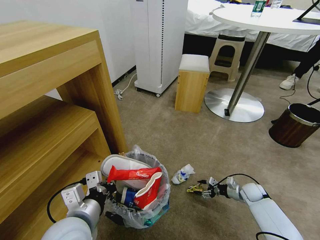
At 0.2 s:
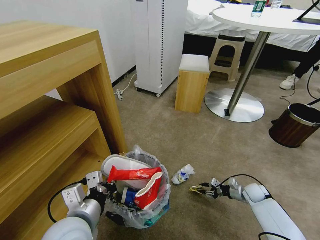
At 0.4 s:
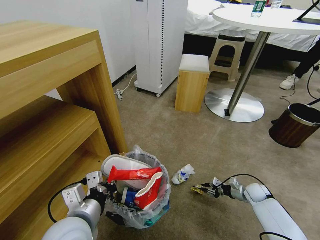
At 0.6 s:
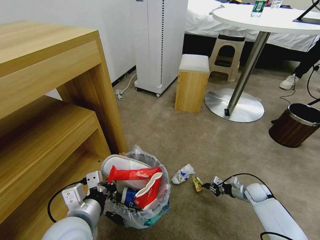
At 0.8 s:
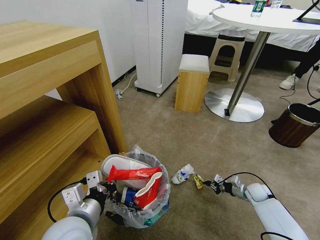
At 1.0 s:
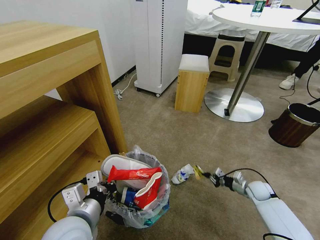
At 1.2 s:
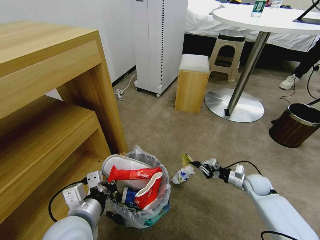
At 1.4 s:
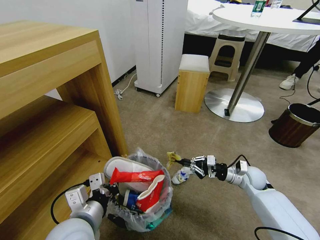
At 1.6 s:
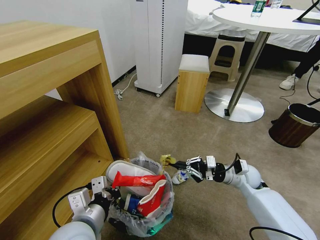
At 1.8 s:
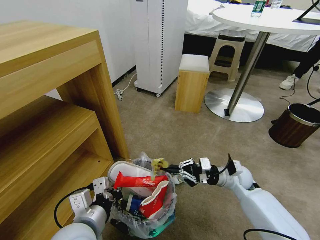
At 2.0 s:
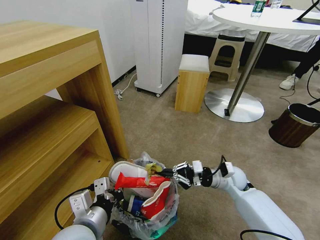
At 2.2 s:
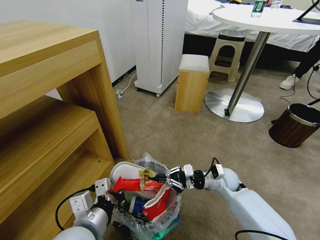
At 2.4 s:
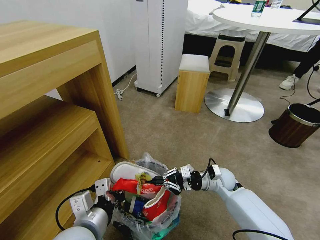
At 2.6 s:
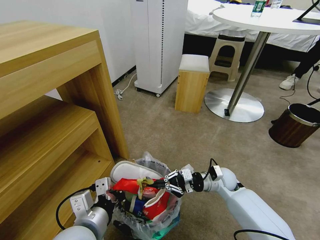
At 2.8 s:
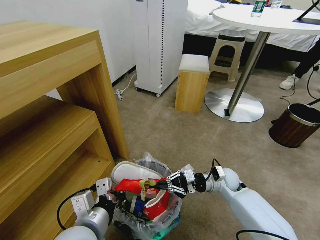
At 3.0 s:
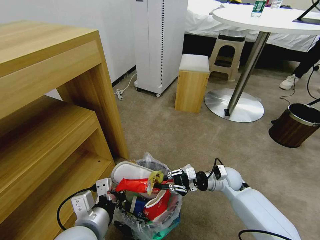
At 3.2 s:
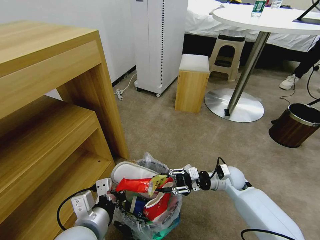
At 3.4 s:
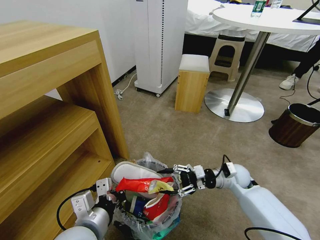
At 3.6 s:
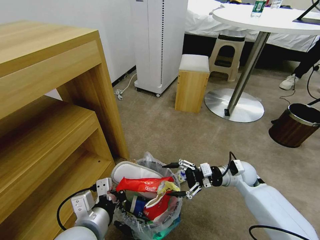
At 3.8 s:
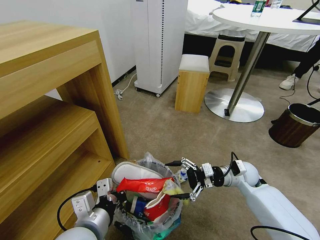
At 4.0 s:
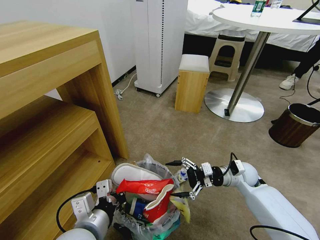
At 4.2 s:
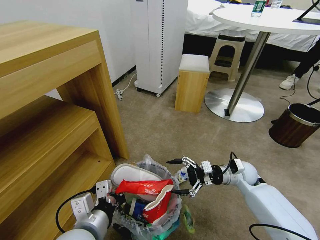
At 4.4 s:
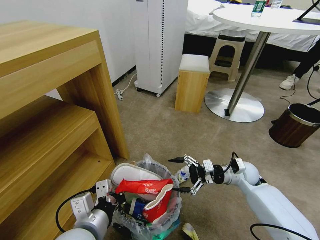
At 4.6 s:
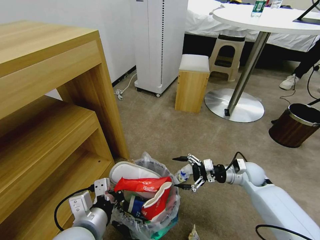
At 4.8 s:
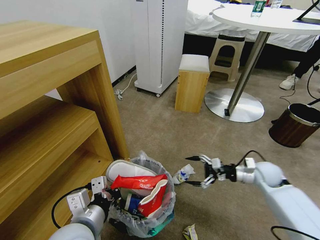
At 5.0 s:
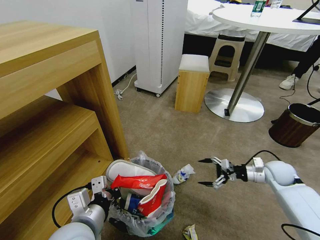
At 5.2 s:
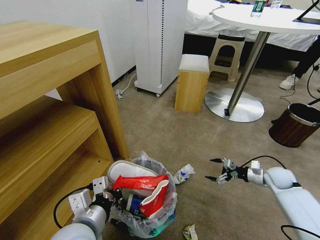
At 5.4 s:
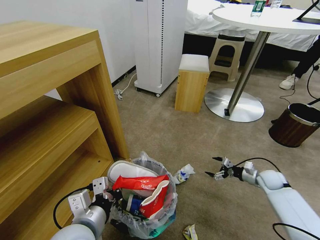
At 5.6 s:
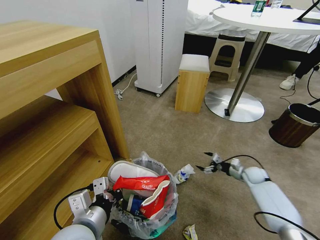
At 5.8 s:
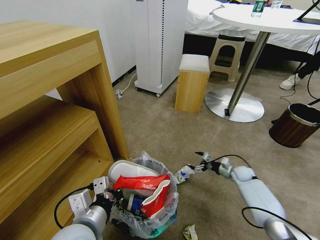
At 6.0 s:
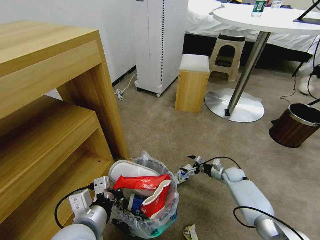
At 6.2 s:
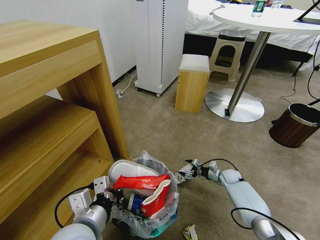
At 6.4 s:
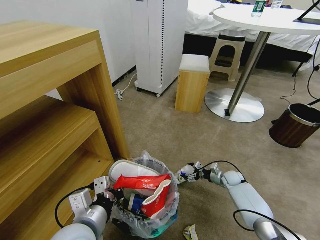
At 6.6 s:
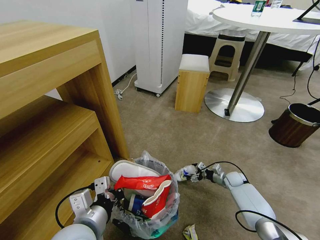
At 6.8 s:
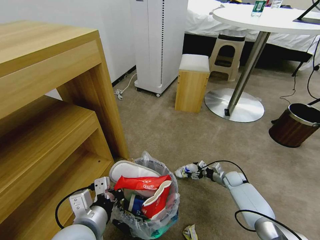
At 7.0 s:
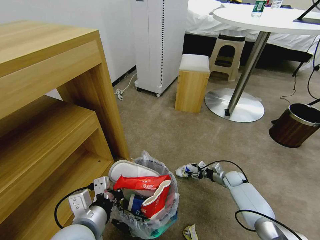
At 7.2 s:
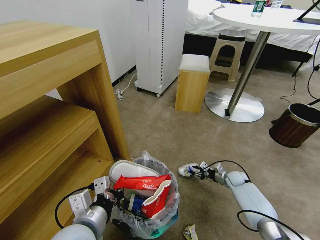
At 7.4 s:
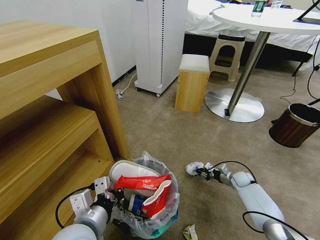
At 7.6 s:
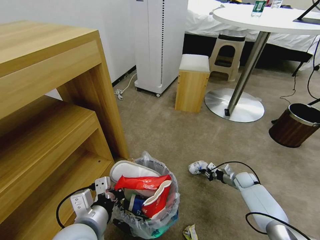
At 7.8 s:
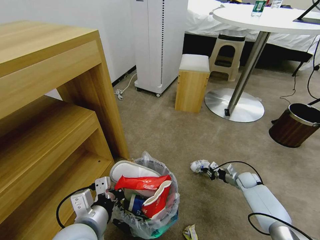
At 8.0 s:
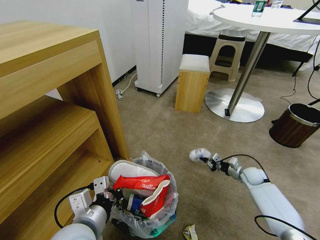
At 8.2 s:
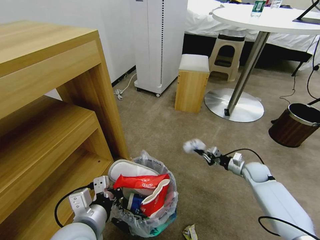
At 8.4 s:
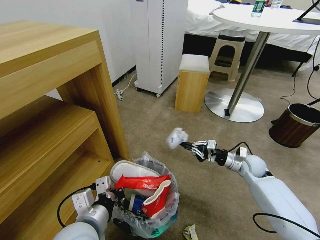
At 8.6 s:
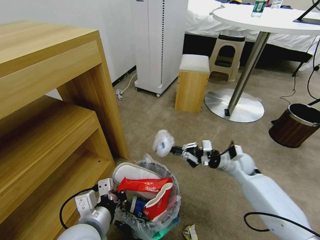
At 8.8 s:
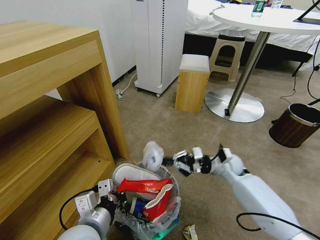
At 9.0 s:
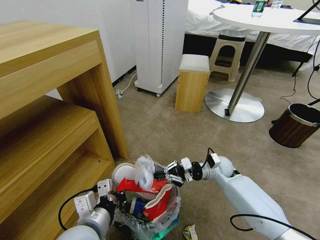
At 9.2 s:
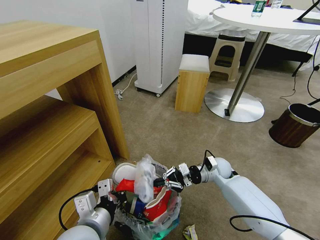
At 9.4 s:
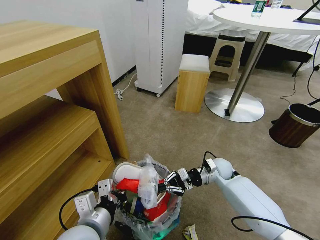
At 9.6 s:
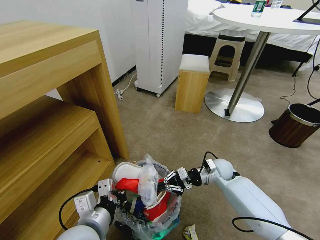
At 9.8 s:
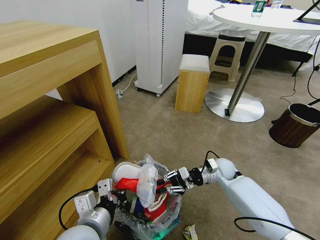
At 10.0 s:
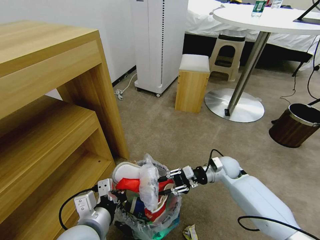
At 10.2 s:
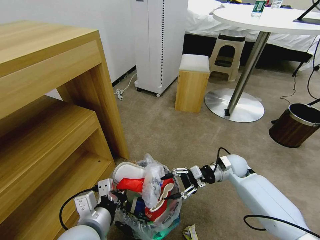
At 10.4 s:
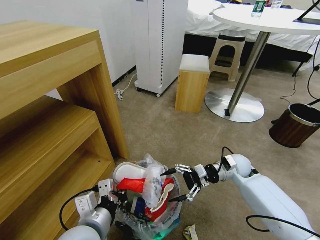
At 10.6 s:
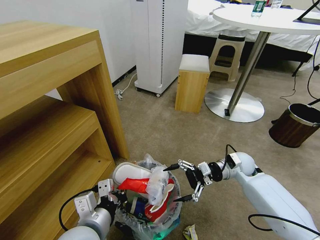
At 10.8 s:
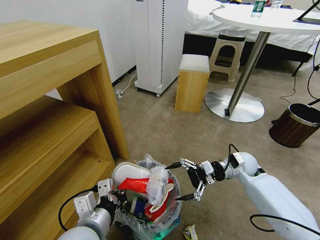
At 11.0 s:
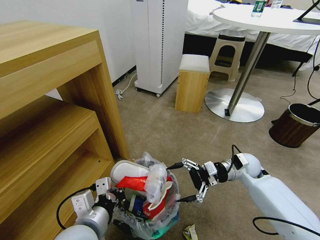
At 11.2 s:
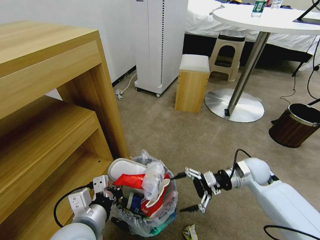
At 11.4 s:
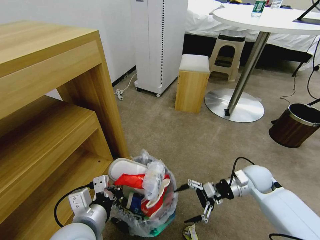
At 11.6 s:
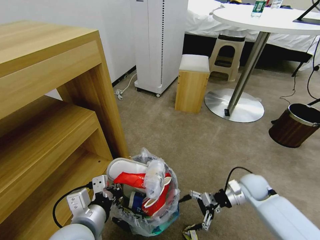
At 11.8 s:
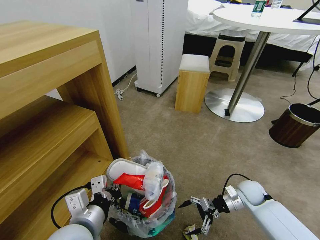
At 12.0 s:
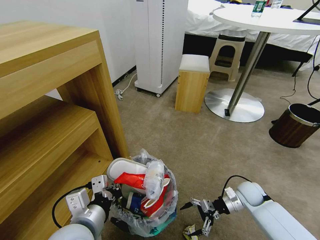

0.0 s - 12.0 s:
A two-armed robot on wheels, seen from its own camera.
Task of the whole recording: Pick up the trash bin and place the garbage on the floor into it.
0.0 s - 1.6 s: The right gripper moves upward and to the left, some 20 cm, and closes.
1.6 s - 3.0 s: The right gripper heads to the left, covering approximately 5 cm.
3.0 s - 4.4 s: The right gripper moves to the right, some 5 cm, and opens its fingers.
4.4 s - 6.0 s: The right gripper goes roughly 15 cm downward and forward.
6.0 s - 7.6 s: The right gripper shifts approximately 5 cm to the right, and closes up.
7.6 s - 9.0 s: The right gripper moves to the left and upward, roughly 25 cm.
9.0 s - 10.4 s: The right gripper changes place by approximately 5 cm, and opens its fingers.
10.4 s - 12.0 s: The right gripper shifts about 15 cm downward, backward and to the right.

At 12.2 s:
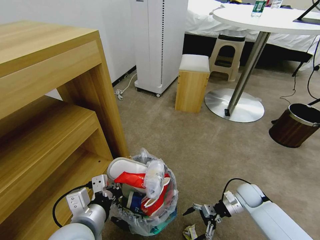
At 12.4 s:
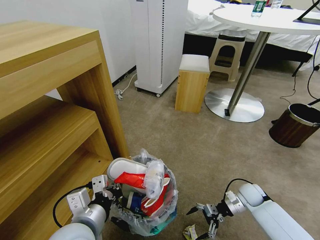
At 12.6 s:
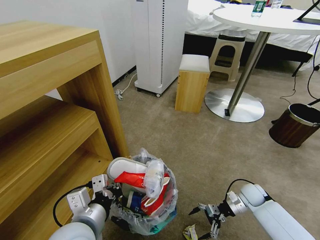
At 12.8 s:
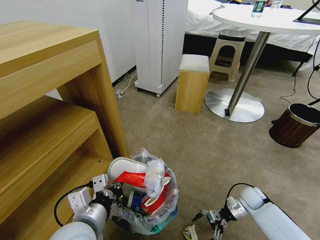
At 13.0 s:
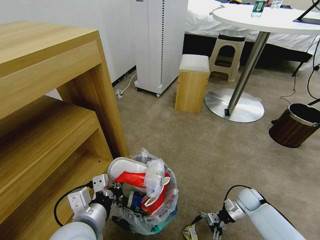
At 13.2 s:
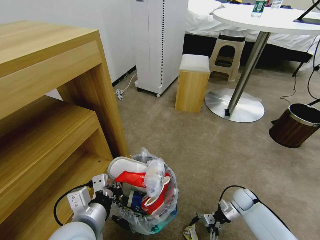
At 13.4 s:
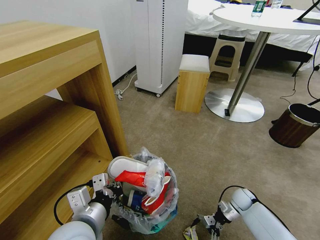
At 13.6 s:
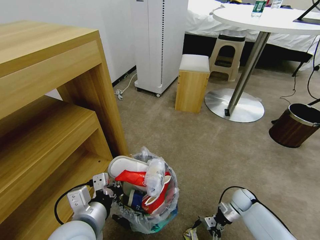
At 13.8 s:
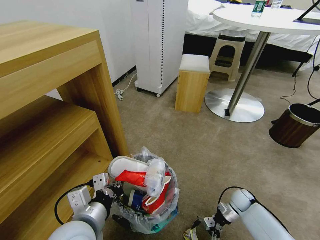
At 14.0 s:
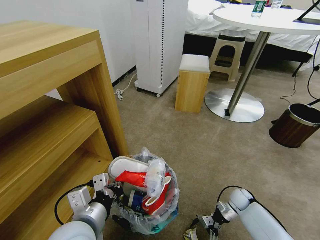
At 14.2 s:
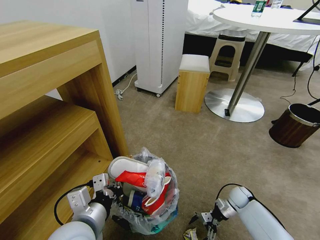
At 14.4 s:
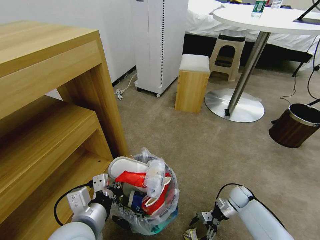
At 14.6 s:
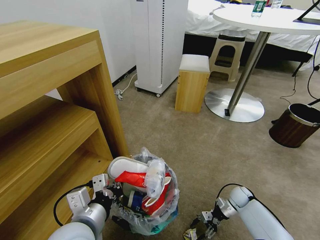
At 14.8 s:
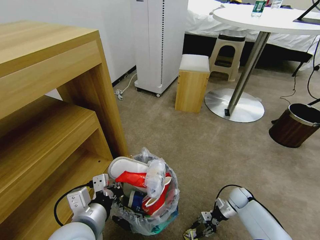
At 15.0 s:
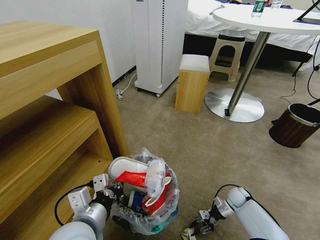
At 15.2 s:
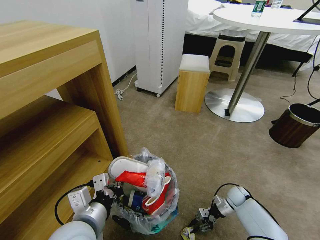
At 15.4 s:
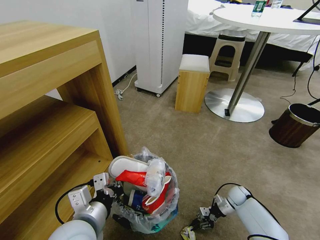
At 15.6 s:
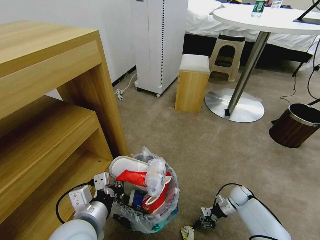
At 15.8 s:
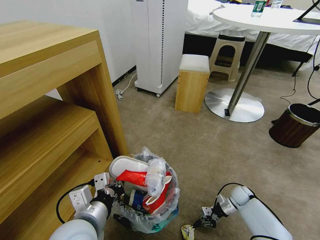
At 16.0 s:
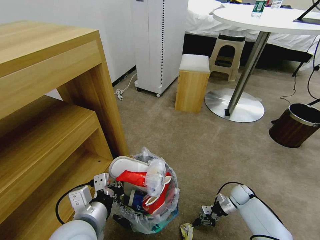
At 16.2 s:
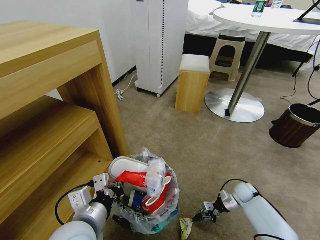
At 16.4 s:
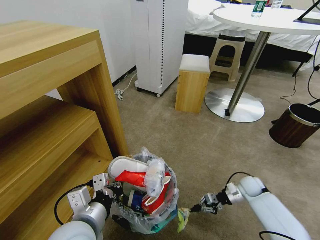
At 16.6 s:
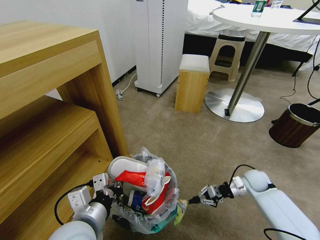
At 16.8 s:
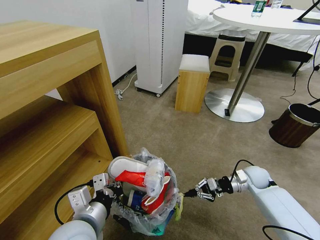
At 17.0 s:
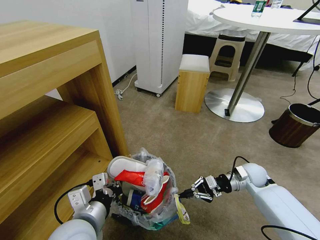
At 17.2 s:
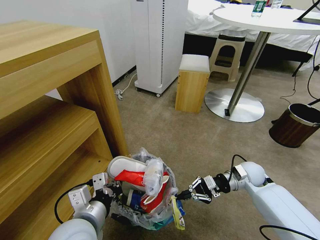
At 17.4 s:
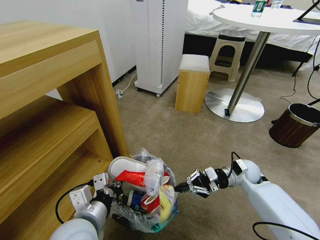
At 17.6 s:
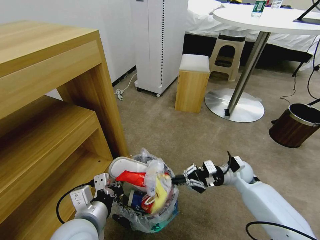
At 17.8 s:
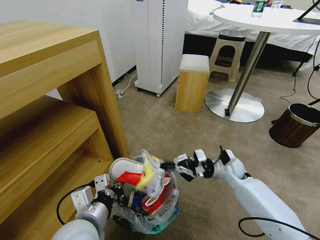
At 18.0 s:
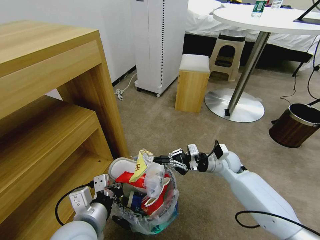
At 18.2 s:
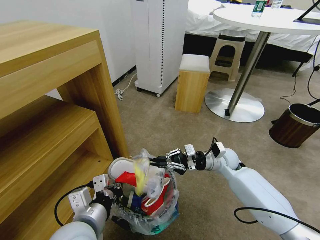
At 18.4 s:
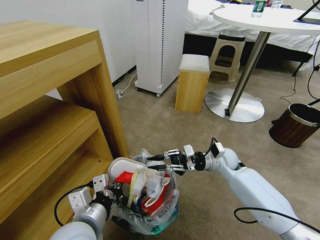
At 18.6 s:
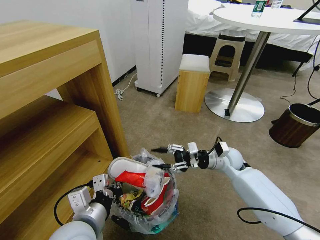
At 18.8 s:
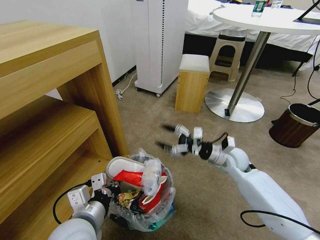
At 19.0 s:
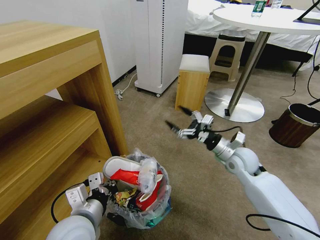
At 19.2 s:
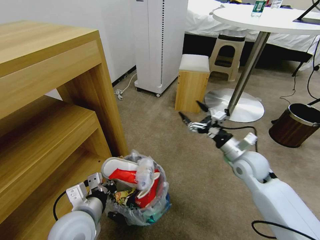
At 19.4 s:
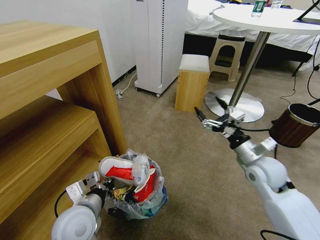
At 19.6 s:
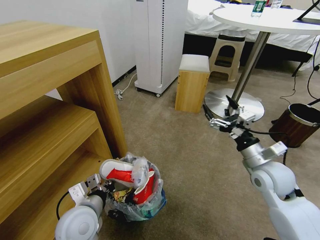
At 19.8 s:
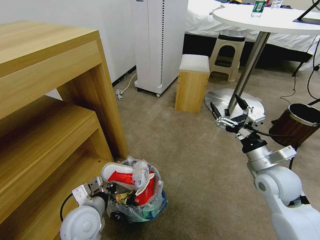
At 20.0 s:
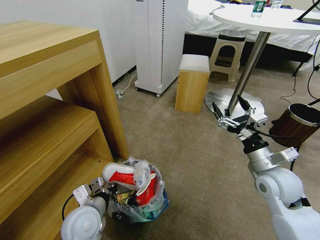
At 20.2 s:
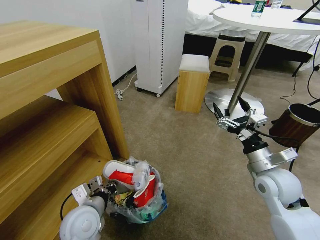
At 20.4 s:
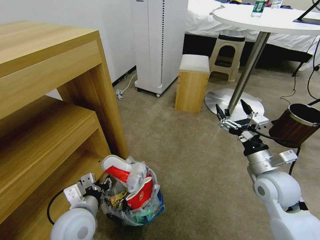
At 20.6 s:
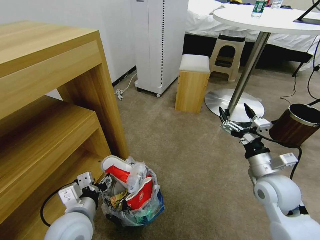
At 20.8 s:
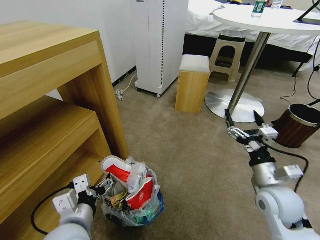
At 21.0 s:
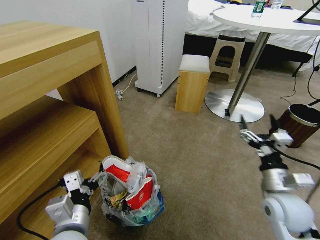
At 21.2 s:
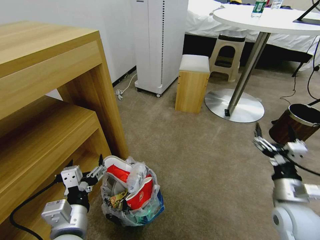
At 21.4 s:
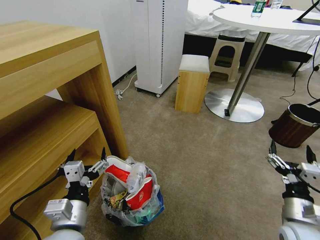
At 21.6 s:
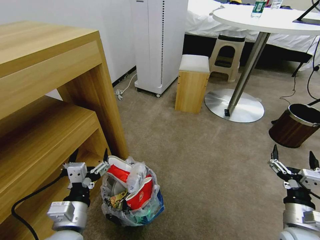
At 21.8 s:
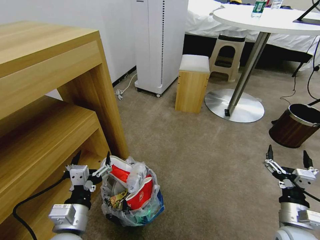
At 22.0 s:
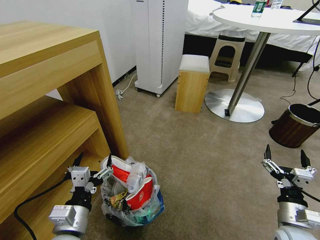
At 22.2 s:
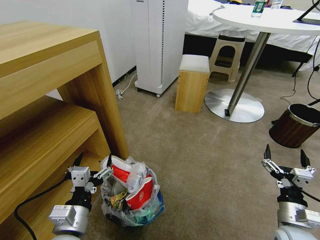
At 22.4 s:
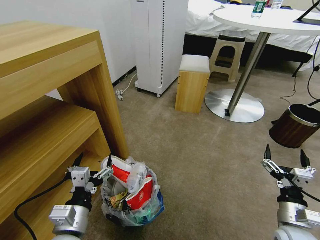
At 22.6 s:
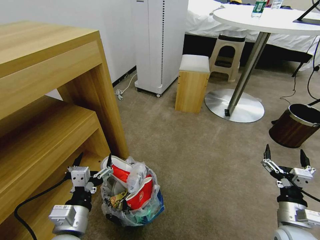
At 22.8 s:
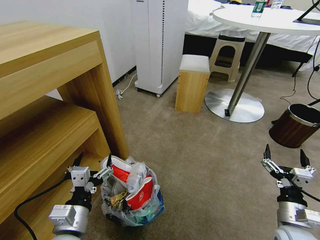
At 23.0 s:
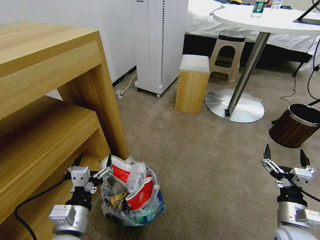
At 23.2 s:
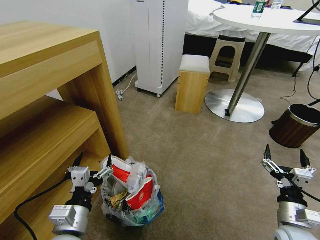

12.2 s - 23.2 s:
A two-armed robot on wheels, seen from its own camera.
Task of the whole recording: Pick up the trash bin and place the garbage on the floor into it.
12.2 s - 13.8 s: The right gripper heads downward, covering about 5 cm.
13.8 s - 15.4 s: The right gripper closes its fingers.
15.4 s - 17.0 s: The right gripper travels upward by some 20 cm.
17.0 s - 18.4 s: The right gripper goes some 10 cm to the left, and opens.
18.4 s - 20.0 s: The left gripper shifts about 10 cm downward and forward; the right gripper travels backward, upward and to the right by about 20 cm, and opens.
20.0 s - 21.6 s: The right gripper heads backward and downward, covering roughly 15 cm, while the left gripper heads backward, covering approximately 5 cm, and opens.
21.6 s - 23.2 s: Neither gripper changes place.
